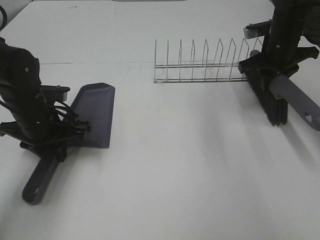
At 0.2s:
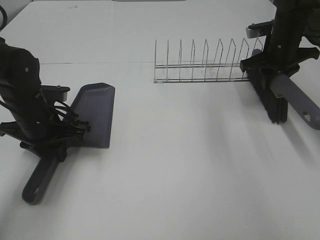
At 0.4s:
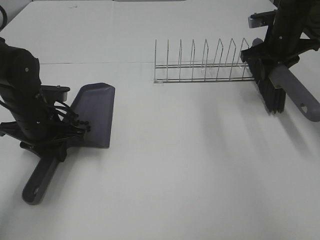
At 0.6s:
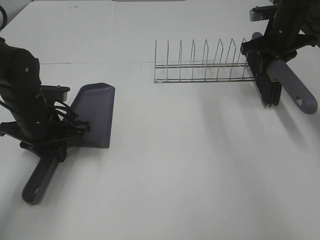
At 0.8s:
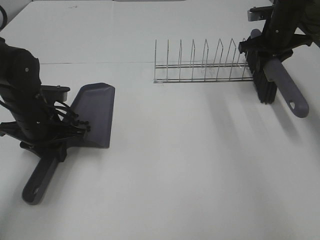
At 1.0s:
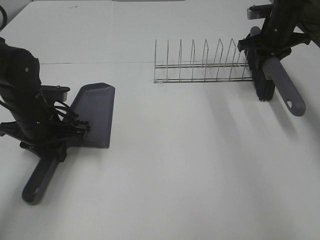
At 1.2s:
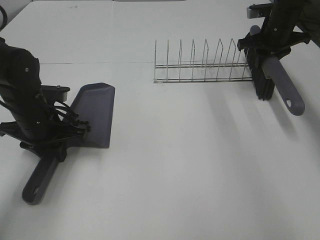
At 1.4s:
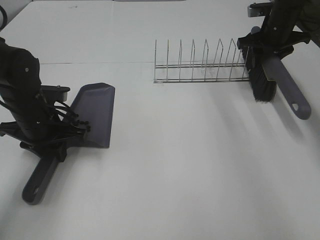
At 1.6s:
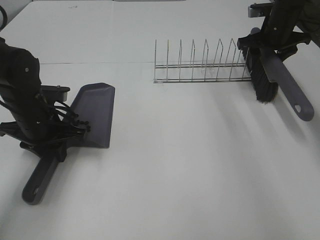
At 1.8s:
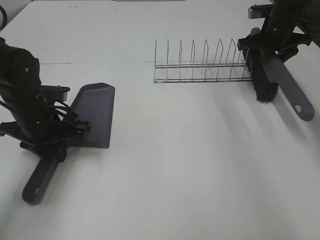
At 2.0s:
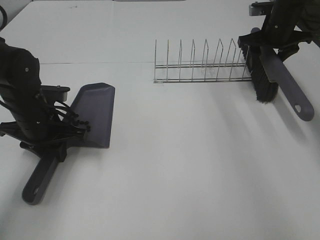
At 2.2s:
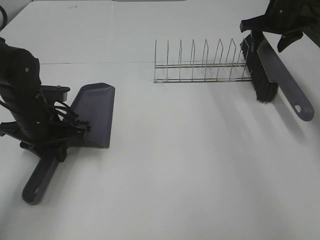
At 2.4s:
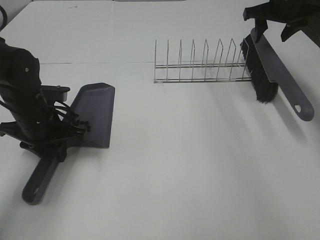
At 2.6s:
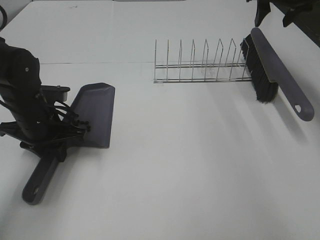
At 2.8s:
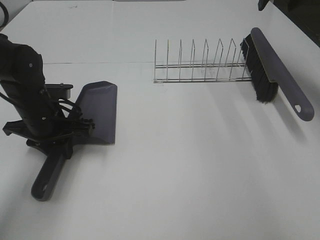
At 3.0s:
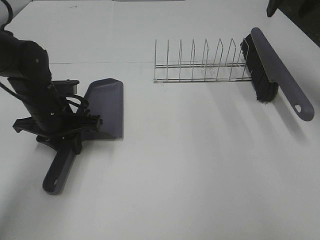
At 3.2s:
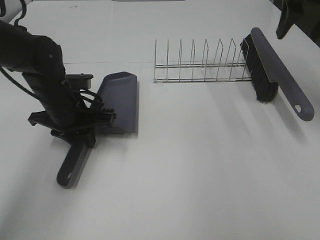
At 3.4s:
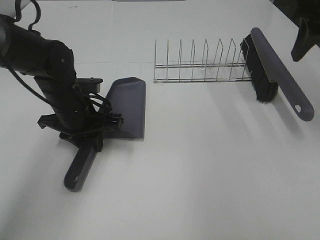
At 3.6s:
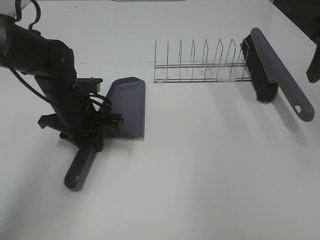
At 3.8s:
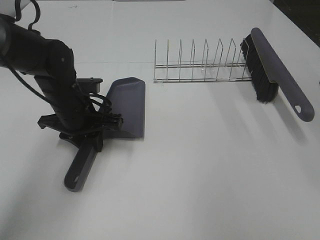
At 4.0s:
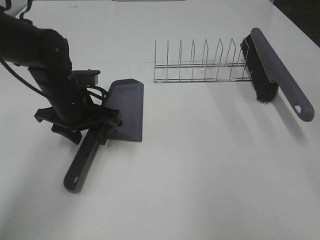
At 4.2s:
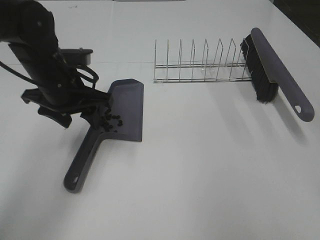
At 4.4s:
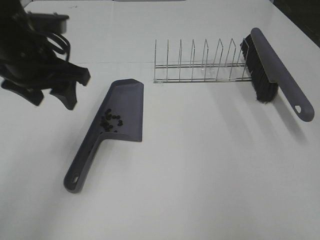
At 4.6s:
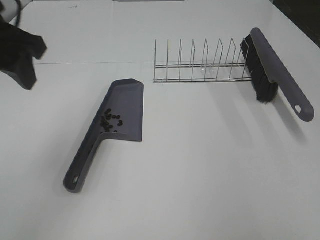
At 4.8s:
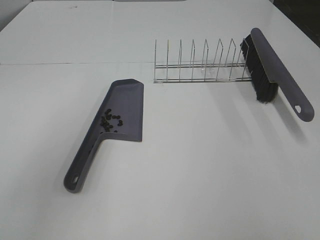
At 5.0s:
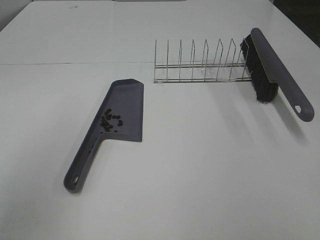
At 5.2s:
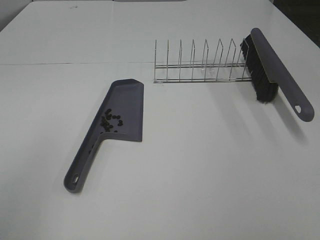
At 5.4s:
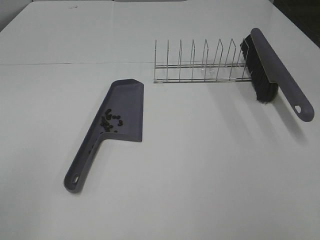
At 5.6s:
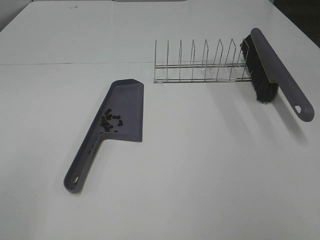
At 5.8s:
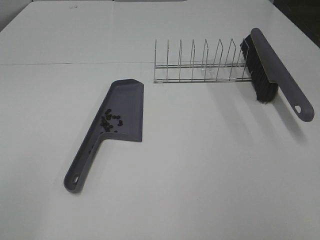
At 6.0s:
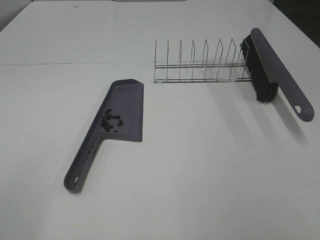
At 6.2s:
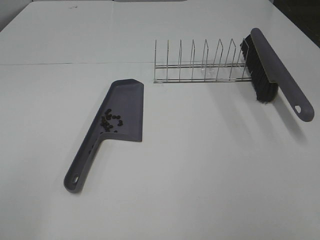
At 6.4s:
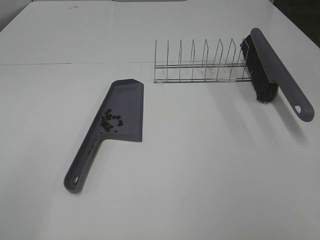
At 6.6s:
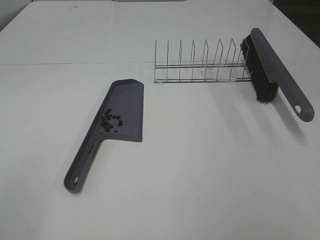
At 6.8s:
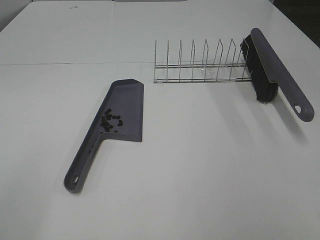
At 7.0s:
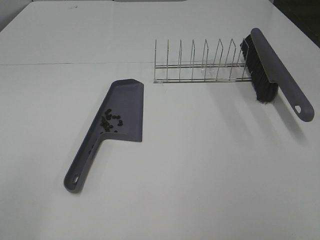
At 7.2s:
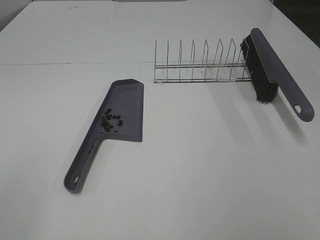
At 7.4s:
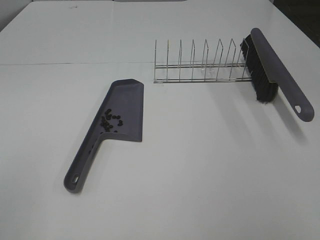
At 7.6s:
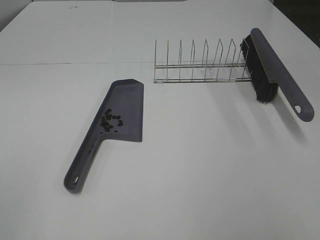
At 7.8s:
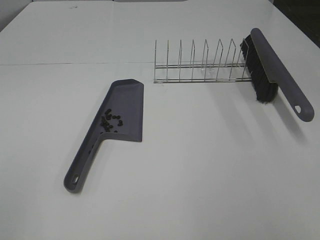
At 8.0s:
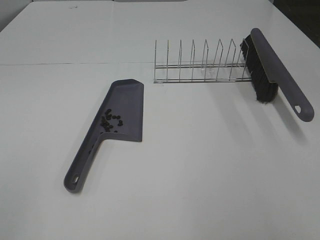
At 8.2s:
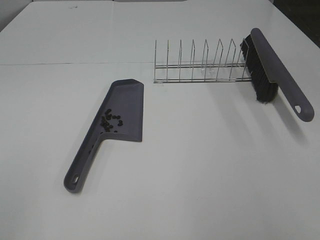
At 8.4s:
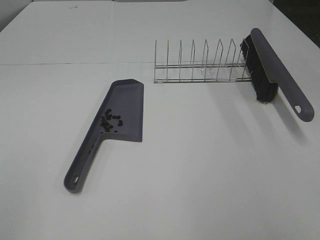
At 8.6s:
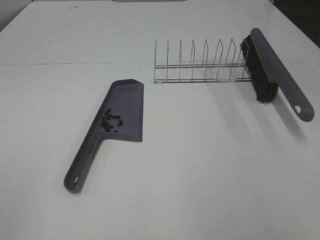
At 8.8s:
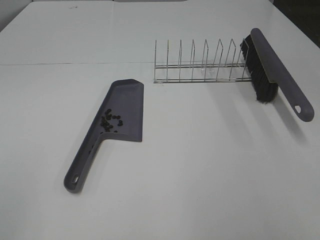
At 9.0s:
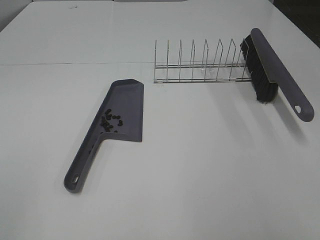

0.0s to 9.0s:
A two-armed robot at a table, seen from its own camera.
Task of the whole recording: Sweep Coffee Bean.
Step, 0.0s to 2.2s: Right hand:place the broom on the rack.
Step, 2.4s to 4.0s: Left hand:place the dustpan on the table.
0.0s to 1.6s: The right gripper shifts about 5 cm forward, and opens up.
1.6s to 3.0s: The right gripper moves upward and backward, some 20 cm.
3.0s to 4.4s: The left gripper goes roughly 15 cm upward, and opens its fingers; the right gripper moves backward, about 35 cm.
4.4s to 6.0s: The left gripper moves backward and to the left, about 30 cm.

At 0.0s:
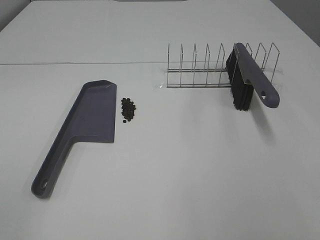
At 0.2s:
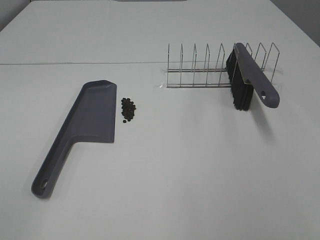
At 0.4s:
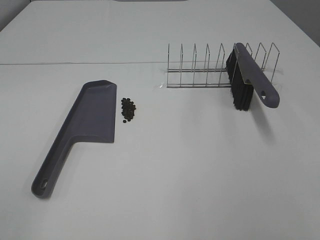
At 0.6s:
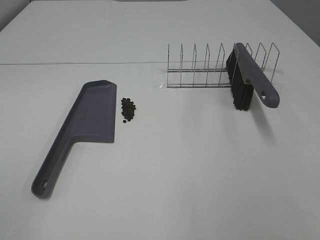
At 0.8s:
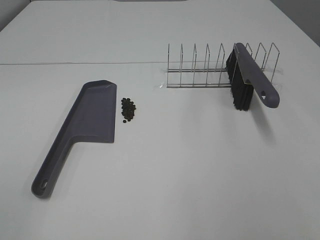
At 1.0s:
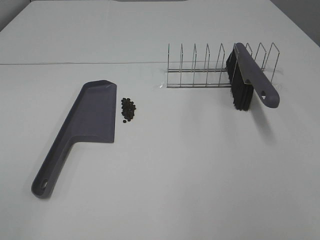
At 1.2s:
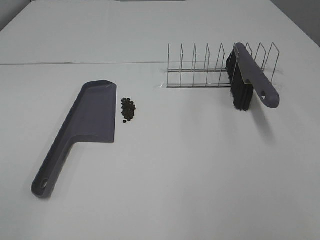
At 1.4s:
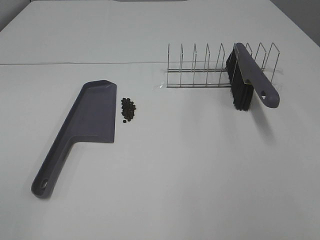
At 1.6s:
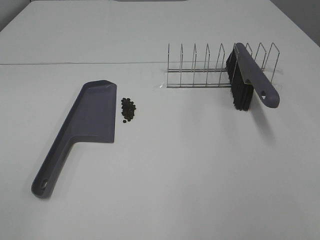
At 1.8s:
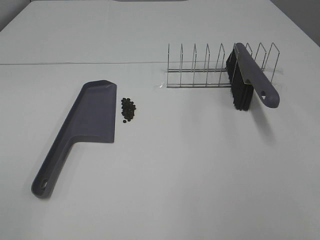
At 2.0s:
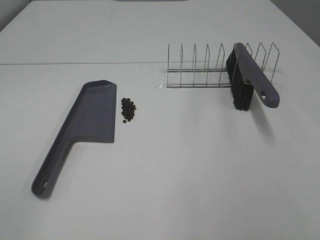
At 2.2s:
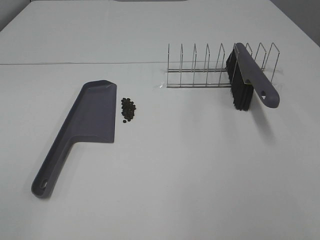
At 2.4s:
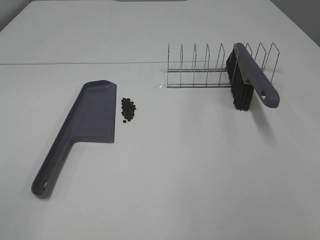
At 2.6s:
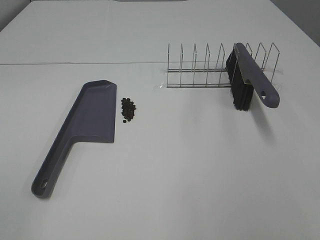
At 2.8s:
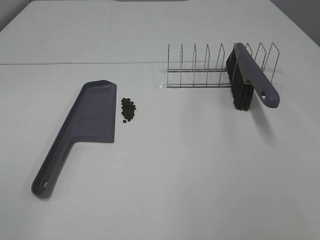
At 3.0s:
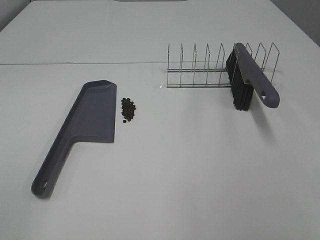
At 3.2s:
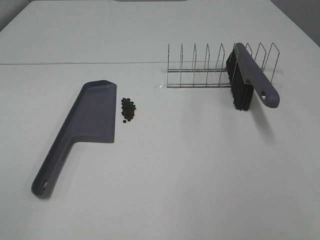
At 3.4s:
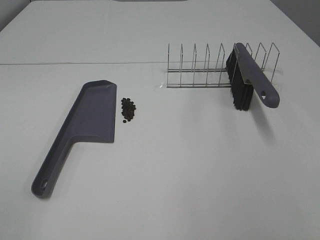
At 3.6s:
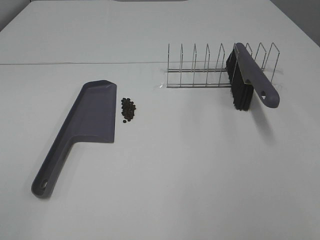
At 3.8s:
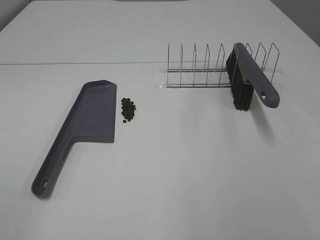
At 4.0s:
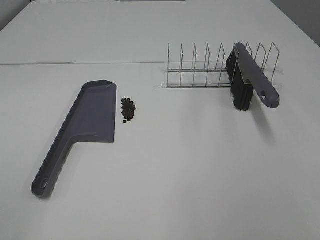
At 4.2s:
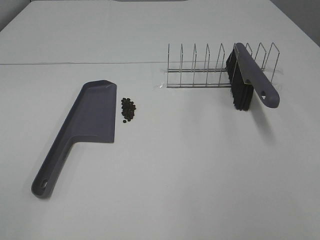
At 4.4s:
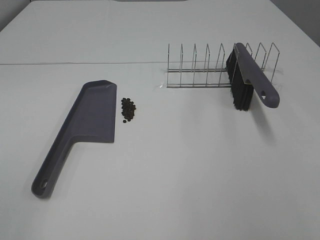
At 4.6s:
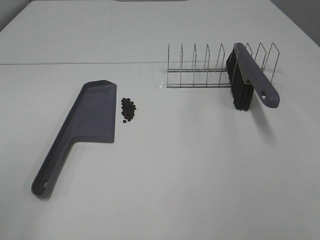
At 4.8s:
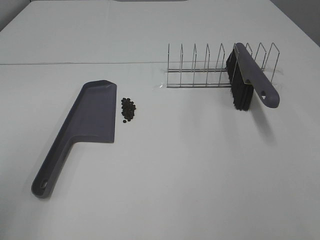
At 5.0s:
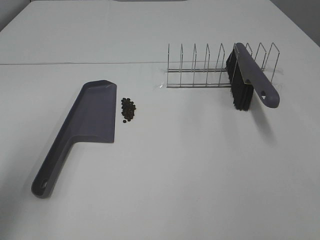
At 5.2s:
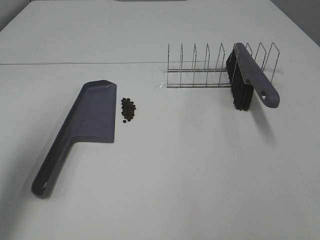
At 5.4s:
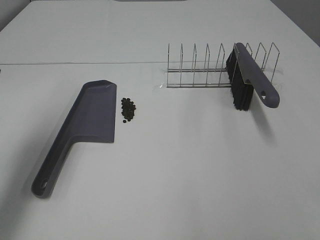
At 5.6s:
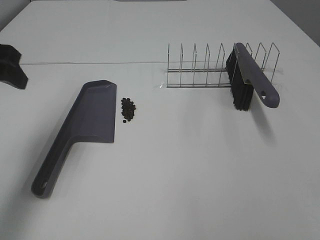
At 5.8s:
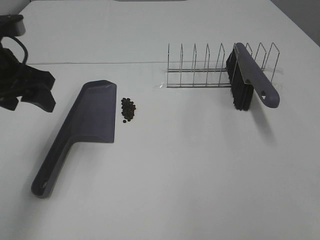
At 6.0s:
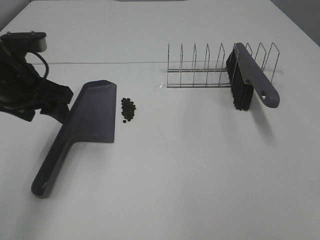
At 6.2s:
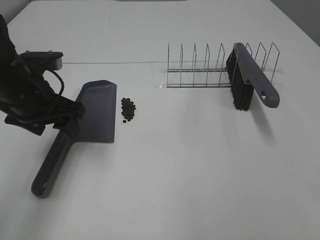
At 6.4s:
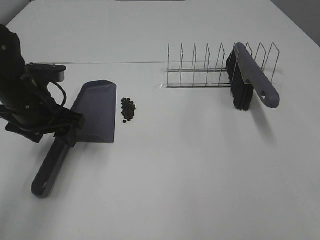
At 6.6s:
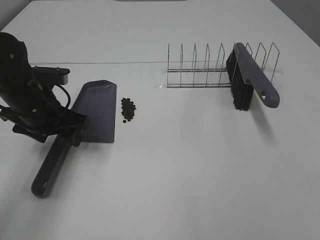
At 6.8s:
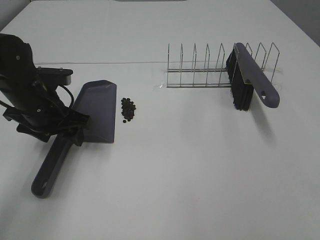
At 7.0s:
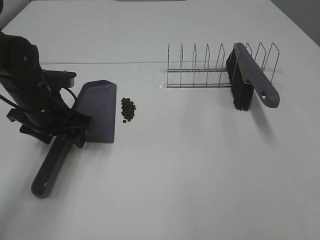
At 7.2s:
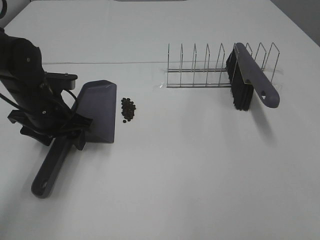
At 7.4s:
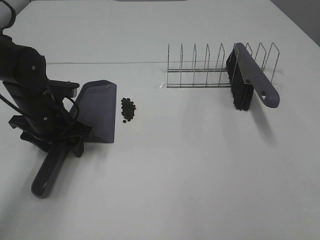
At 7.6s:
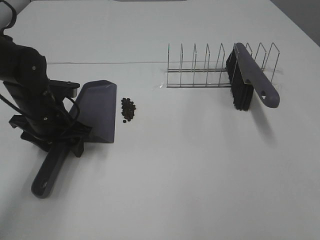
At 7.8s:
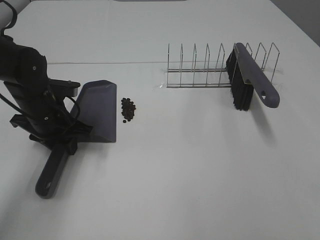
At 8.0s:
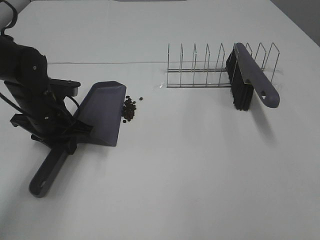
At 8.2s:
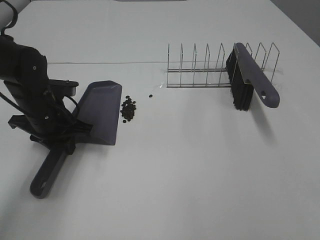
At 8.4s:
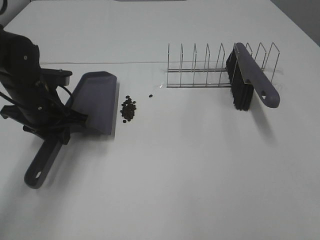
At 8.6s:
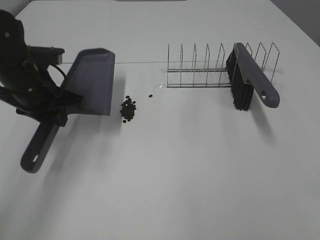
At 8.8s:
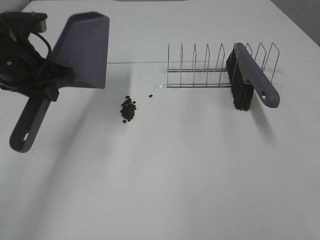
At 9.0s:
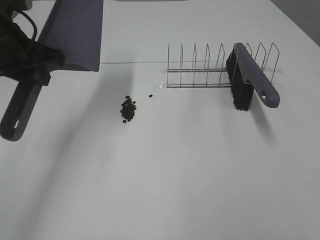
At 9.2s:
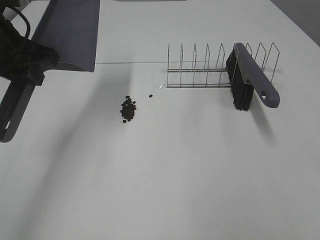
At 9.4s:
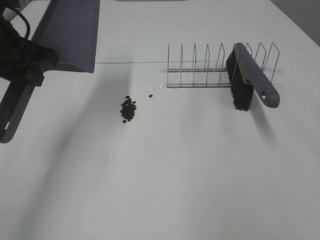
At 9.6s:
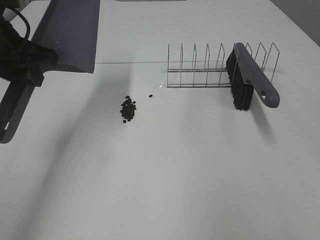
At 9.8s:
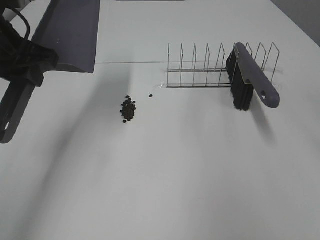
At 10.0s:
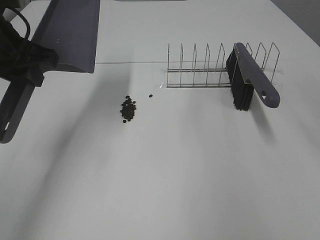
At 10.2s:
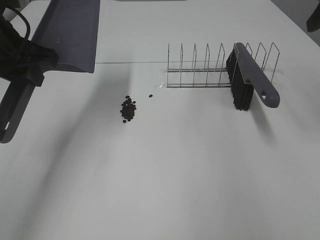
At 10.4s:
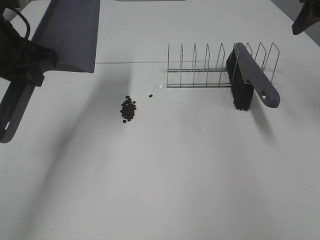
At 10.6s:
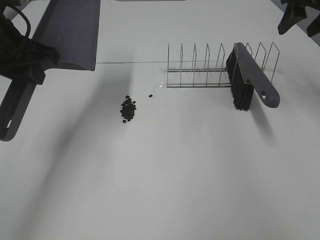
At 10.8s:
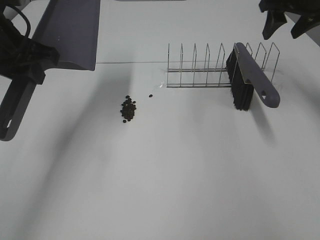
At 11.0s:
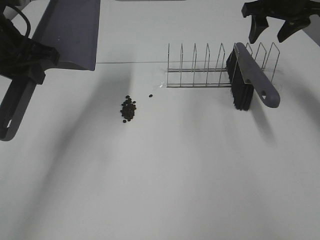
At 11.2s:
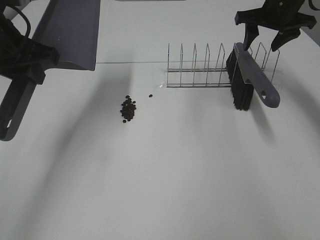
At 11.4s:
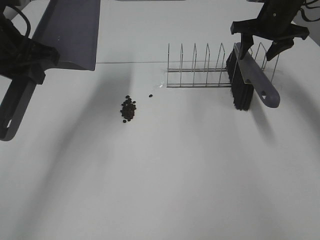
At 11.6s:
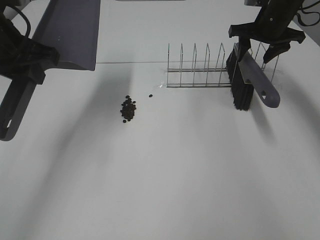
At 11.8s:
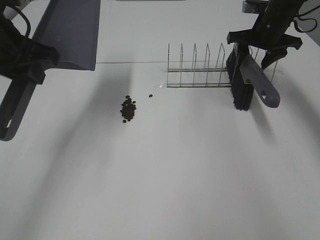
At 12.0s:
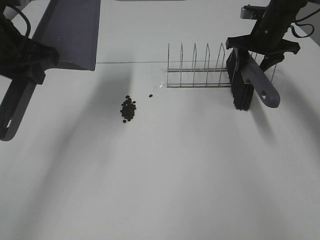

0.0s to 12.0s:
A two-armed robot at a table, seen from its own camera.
Task of the whole recording: Sweep Coffee Bean.
Step, 0.0s to 8.0s: Left hand: grab the dustpan.
0.0s to 3.0s: Both grippers stay about where they are.
4.4s to 6.0s: The left gripper shifts some 30 cm forward.
6.0s to 7.6s: The left gripper goes roughly 10 cm downward.
7.6s to 9.0s: The left gripper shifts roughly 15 cm upward, and closes up.
9.0s to 10.4s: The right gripper goes approximately 40 cm forward.
10.4s to 12.0s: The right gripper travels downward, forward and to the left by some 20 cm.

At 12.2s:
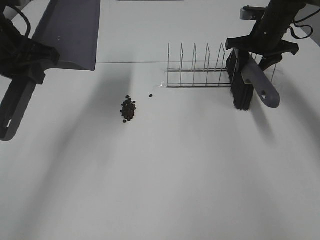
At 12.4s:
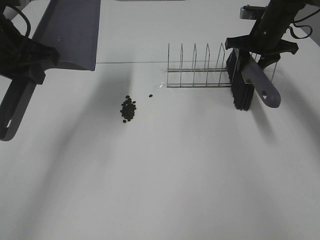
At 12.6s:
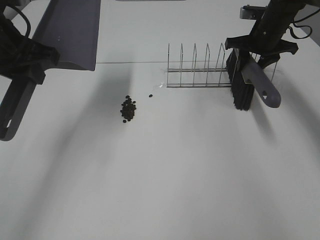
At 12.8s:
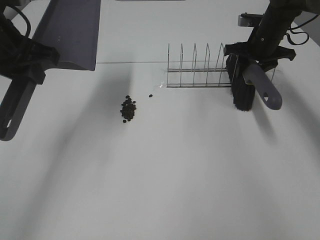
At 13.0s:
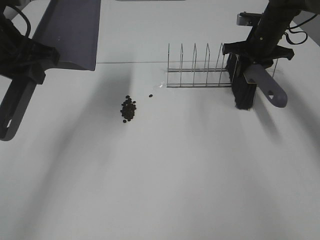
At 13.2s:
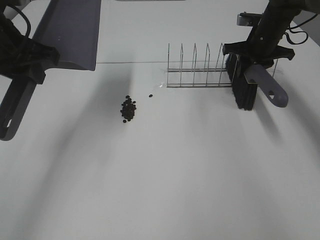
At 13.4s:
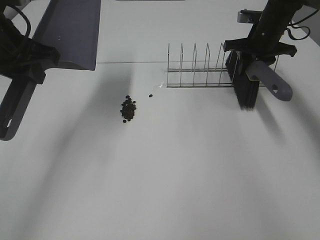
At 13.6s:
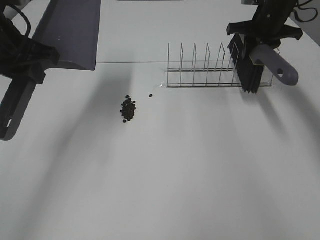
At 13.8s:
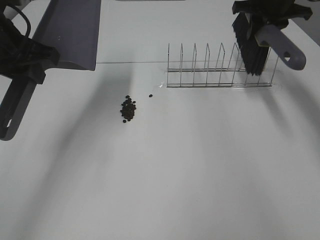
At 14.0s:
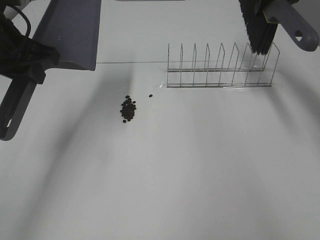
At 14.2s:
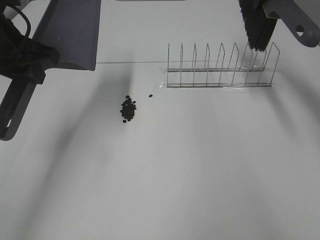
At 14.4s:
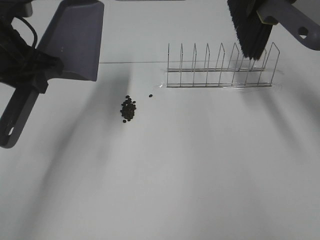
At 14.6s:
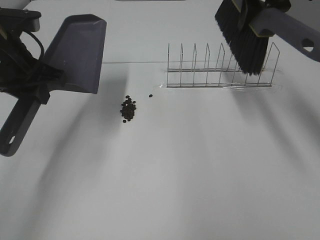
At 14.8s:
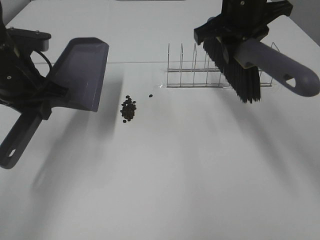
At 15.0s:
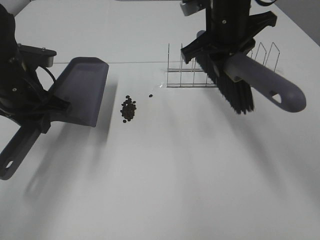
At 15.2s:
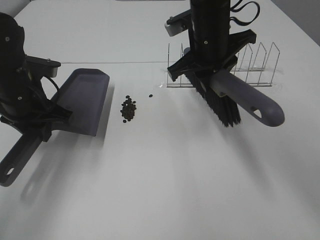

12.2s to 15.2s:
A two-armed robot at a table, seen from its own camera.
Task of the whole recording: Sweep Coffee Bean.
12.2s to 13.8s: The right gripper travels upward by about 10 cm, and closes up.
13.8s to 15.2s: The right gripper moves to the left and backward, approximately 20 cm. Meanwhile the left gripper shifts about 10 cm downward.
